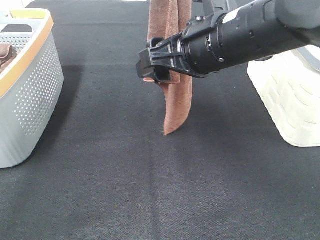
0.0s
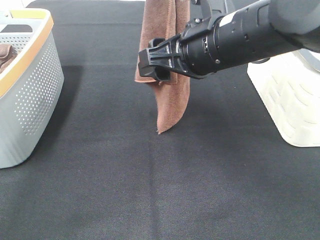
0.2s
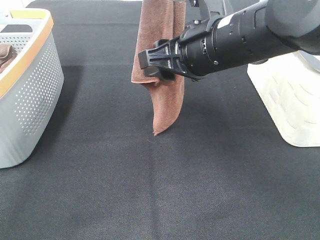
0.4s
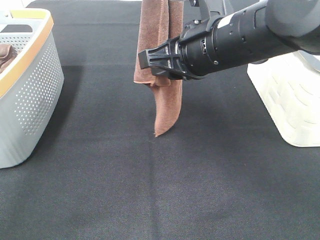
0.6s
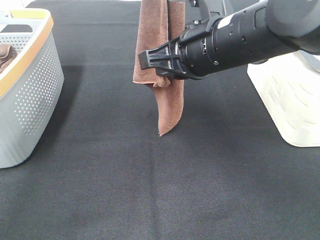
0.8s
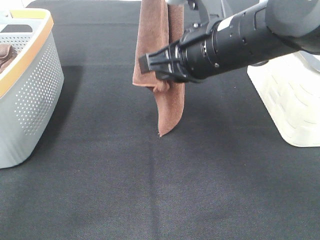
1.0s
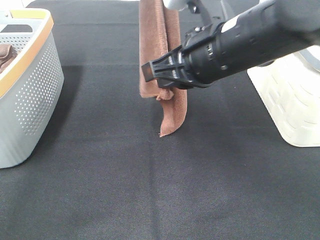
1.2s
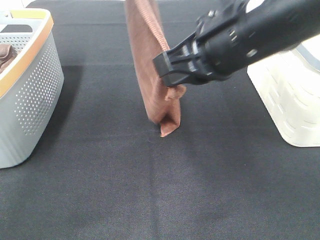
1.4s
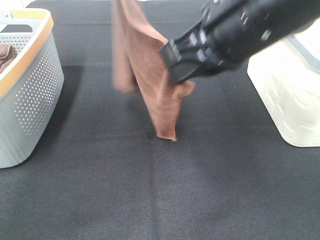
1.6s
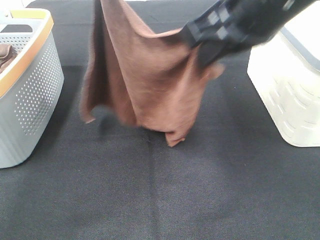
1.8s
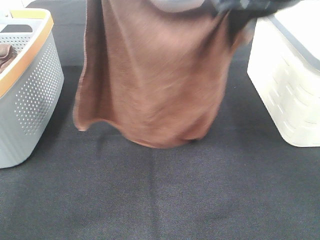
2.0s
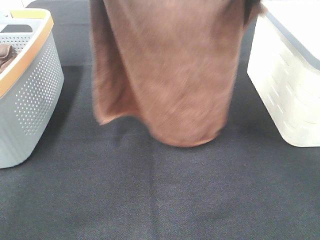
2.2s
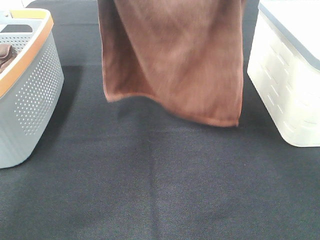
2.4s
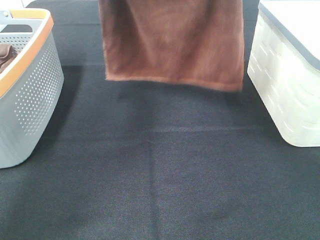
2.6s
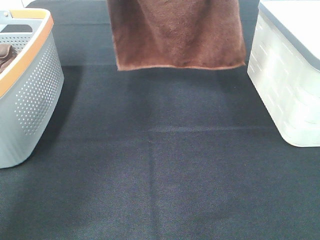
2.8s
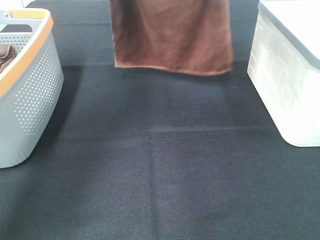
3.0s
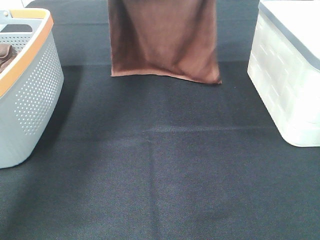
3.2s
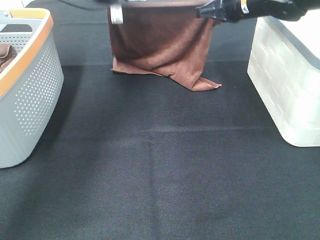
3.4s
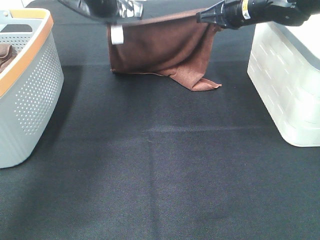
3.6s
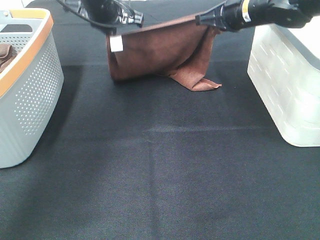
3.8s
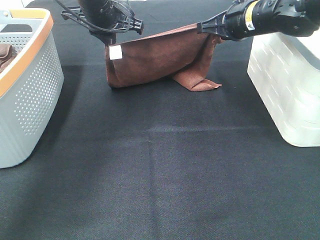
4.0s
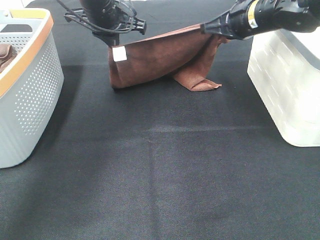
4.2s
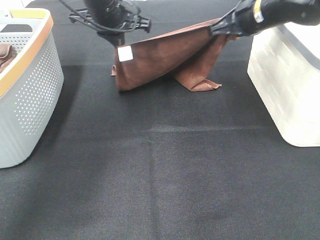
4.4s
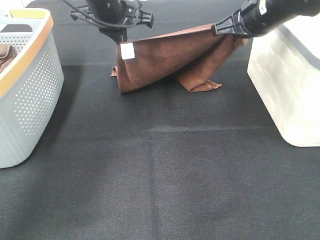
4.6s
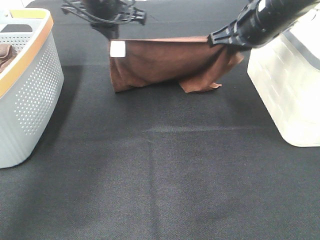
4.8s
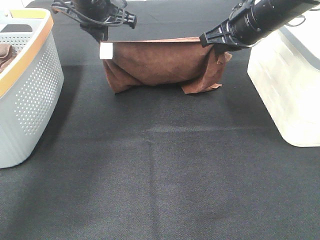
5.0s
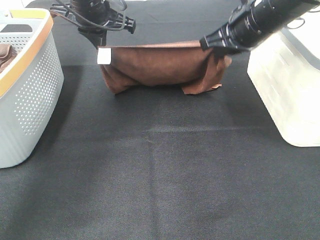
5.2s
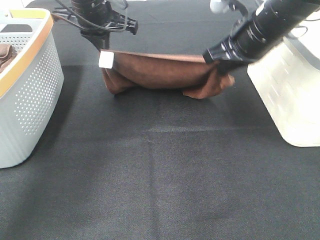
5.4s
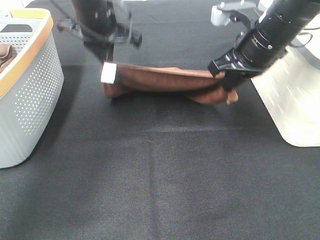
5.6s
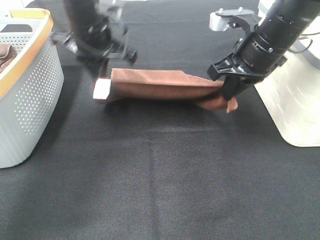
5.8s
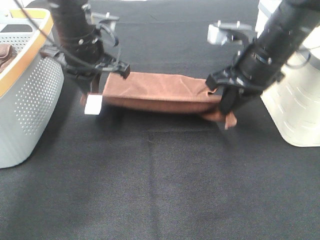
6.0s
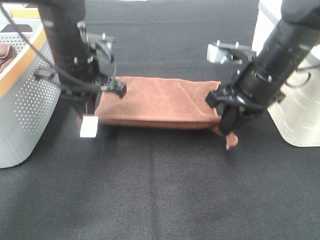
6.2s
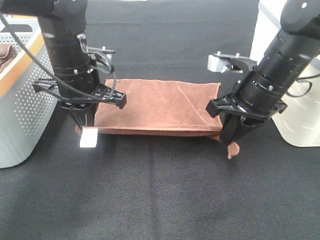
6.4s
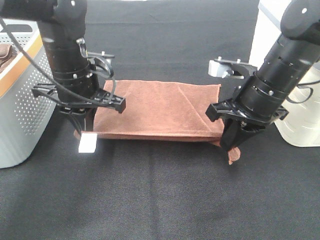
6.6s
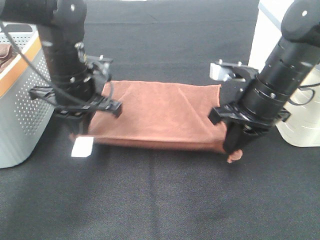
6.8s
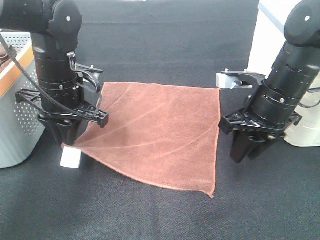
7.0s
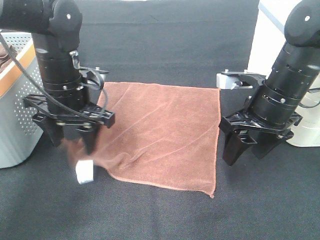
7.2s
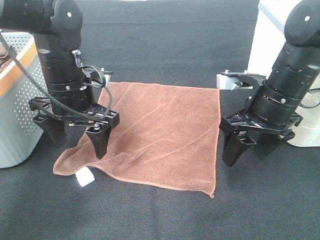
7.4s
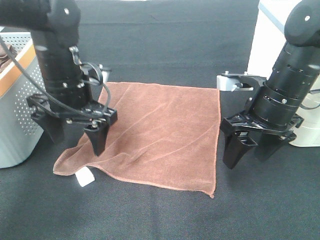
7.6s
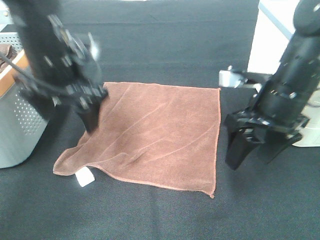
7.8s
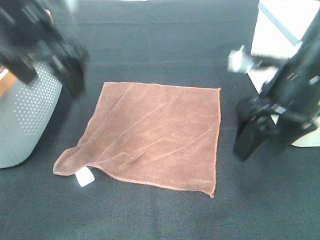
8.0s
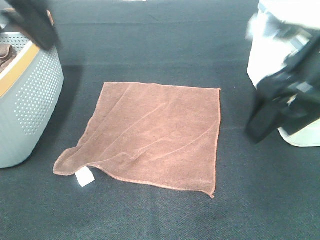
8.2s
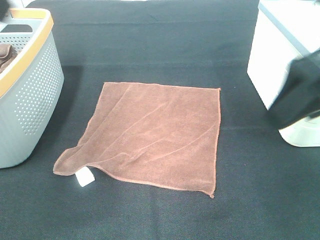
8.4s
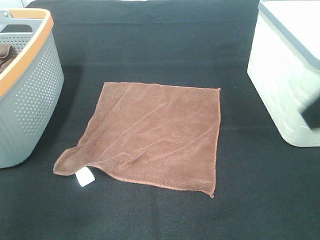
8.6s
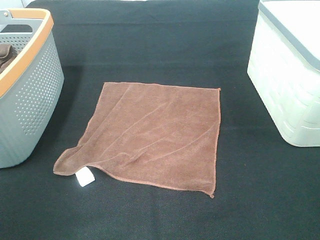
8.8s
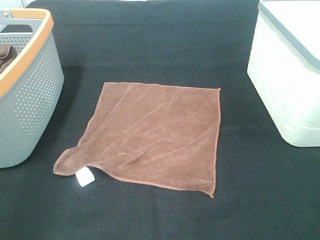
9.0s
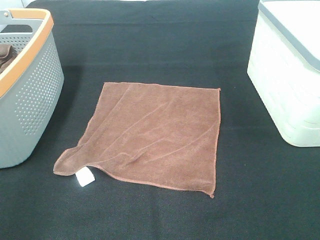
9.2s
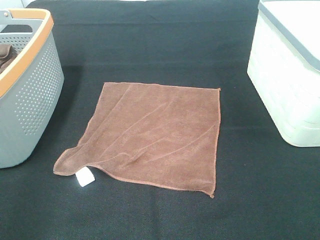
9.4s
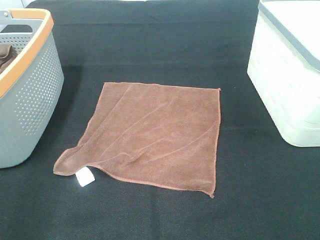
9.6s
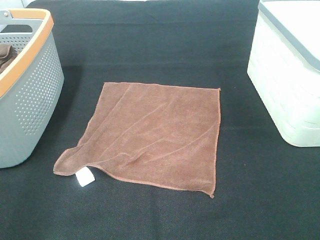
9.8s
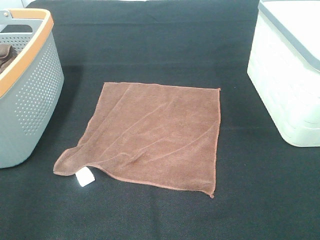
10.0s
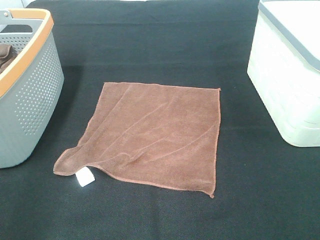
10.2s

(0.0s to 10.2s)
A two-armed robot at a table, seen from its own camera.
Task of the whole recording: Remove the towel and place it.
Step, 0.0s - 2.2s: Right hand: spread the brown towel flat on the table.
Step, 0.0s - 2.4s: Left hand: spread the brown towel flat on the table.
0.0s - 1.4s: The right gripper closes.
1.4s - 3.0s: The left gripper moves forward and downward, about 20 cm, while the right gripper heads forward, covering some 20 cm.
3.0s - 4.4s: The grippers both shift downward by about 10 cm.
4.4s - 5.8s: The grippers both shift backward by approximately 5 cm.
5.8s - 7.2s: The right gripper heads downward and backward, covering about 10 cm, and opens. The left gripper goes some 10 cm backward and downward, and opens its fingers.
7.2s - 8.8s: The left gripper travels backward, upward and to the left by approximately 35 cm; the right gripper travels backward and upward by about 25 cm.
8.8s - 10.2s: The right gripper moves downward, about 5 cm.

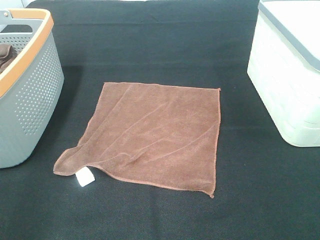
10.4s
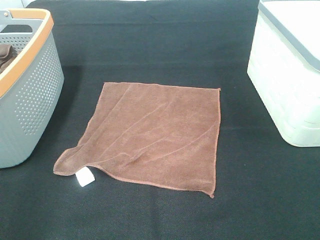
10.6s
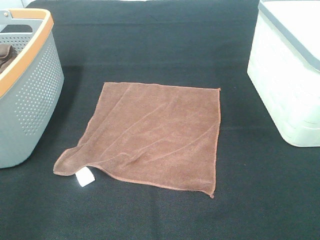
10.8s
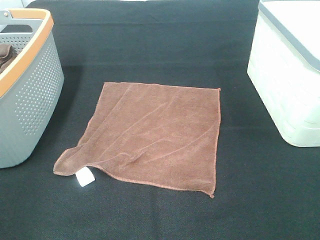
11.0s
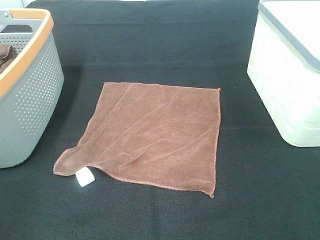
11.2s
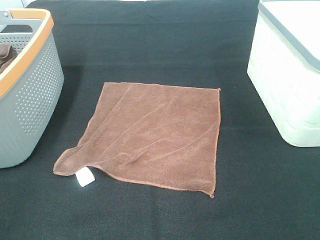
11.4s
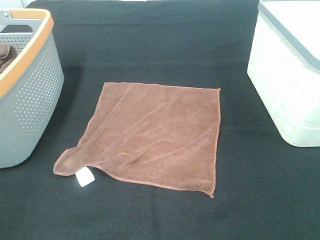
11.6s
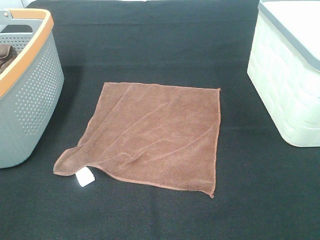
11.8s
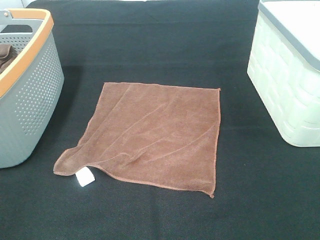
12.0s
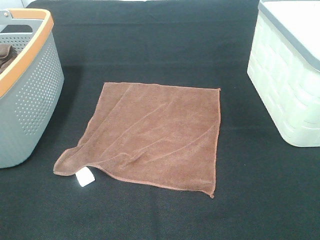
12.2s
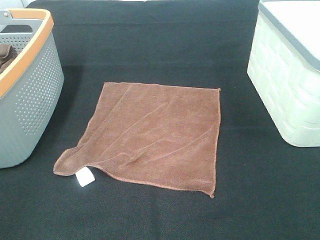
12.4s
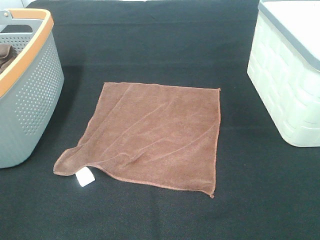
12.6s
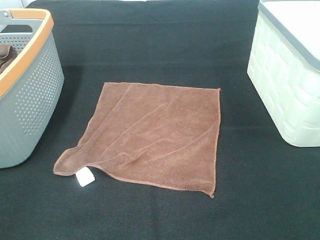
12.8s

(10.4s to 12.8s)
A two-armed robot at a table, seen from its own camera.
Task of the whole recording: Remove the towel and place it.
11.6s - 12.8s: Neither gripper changes place.

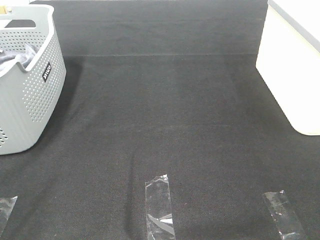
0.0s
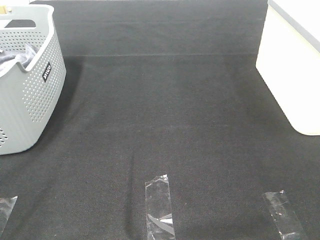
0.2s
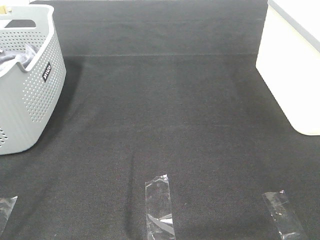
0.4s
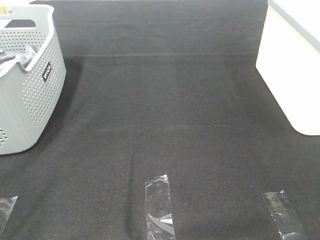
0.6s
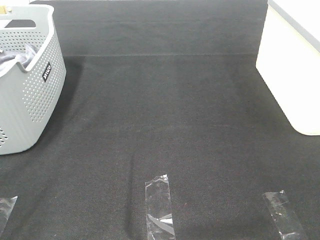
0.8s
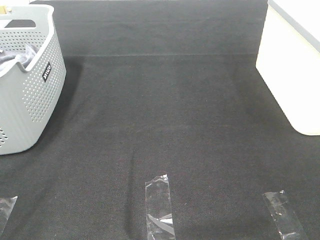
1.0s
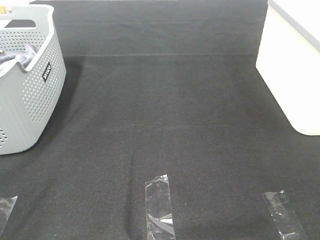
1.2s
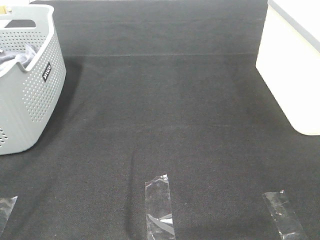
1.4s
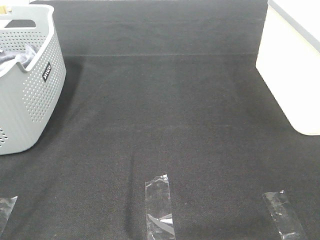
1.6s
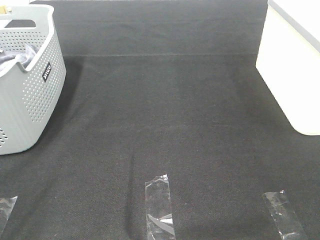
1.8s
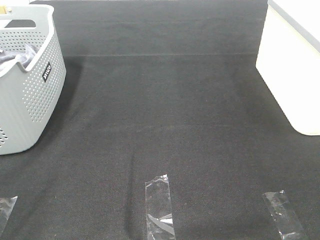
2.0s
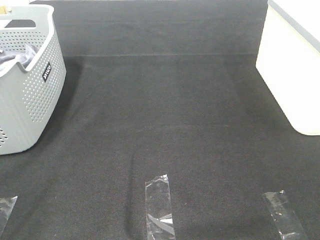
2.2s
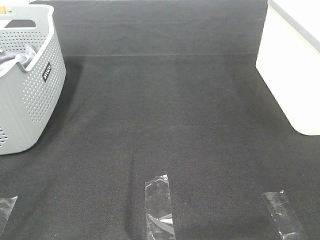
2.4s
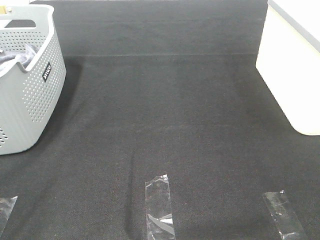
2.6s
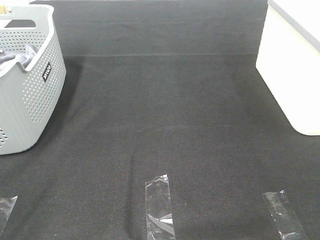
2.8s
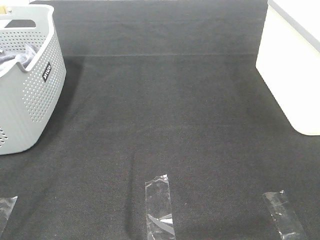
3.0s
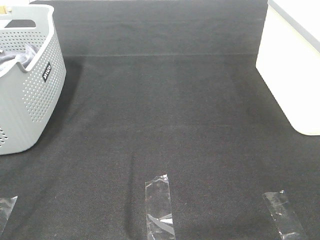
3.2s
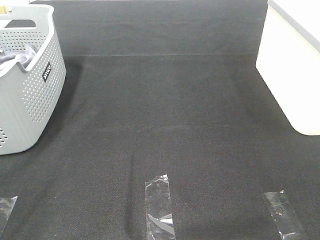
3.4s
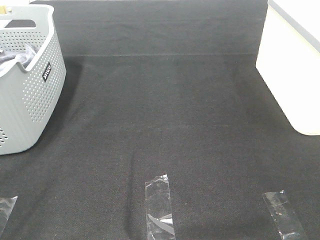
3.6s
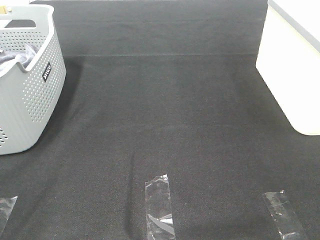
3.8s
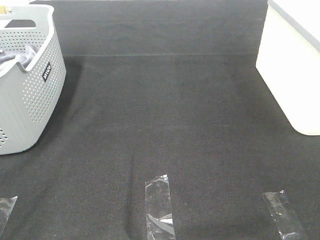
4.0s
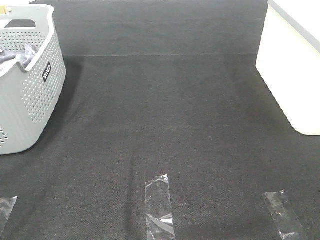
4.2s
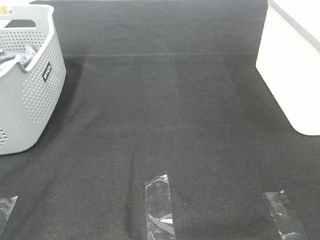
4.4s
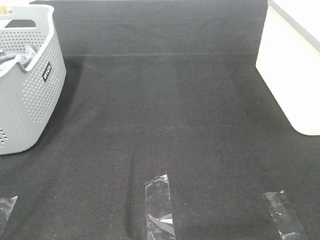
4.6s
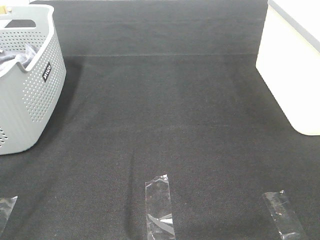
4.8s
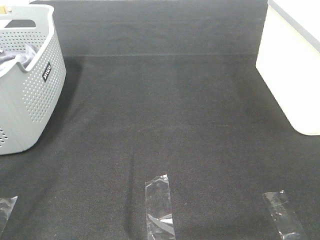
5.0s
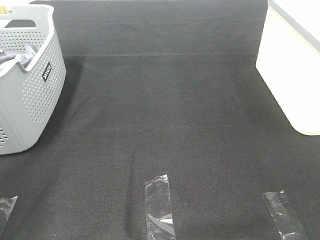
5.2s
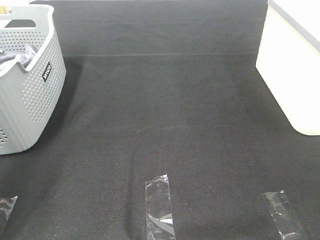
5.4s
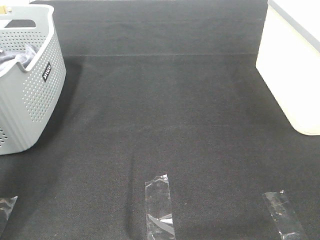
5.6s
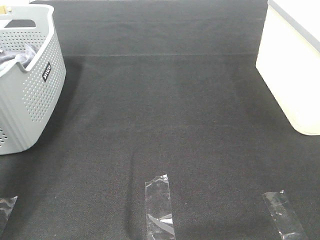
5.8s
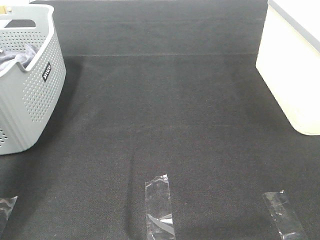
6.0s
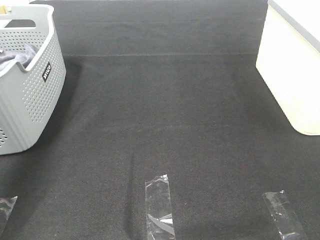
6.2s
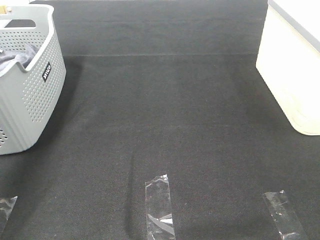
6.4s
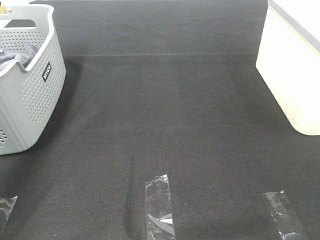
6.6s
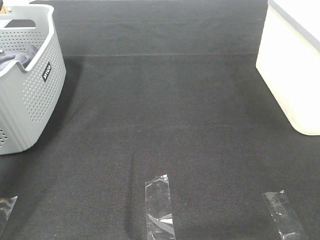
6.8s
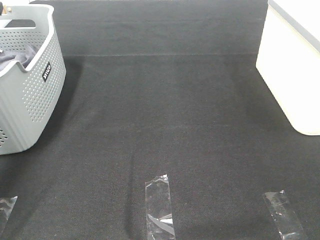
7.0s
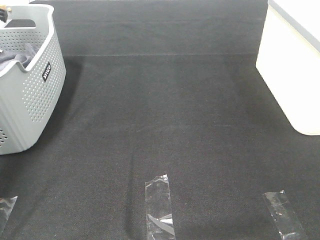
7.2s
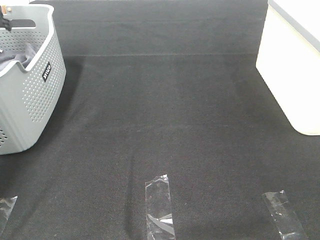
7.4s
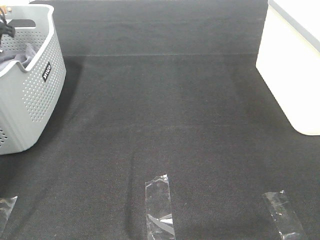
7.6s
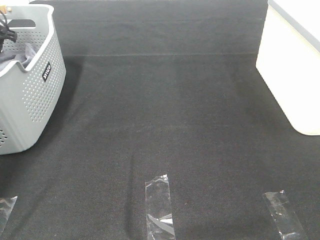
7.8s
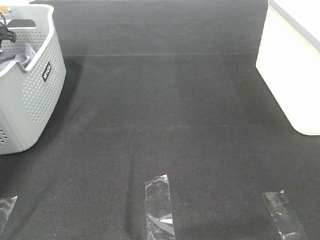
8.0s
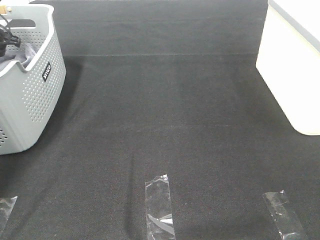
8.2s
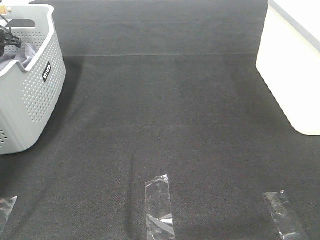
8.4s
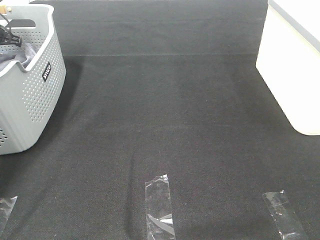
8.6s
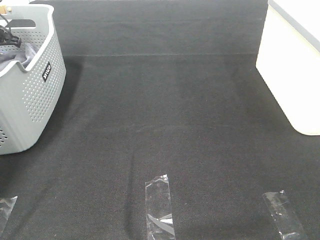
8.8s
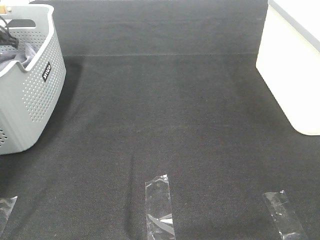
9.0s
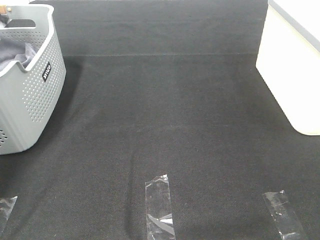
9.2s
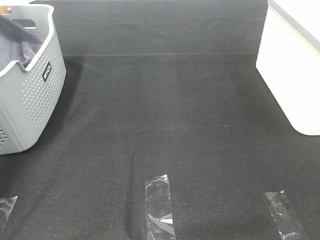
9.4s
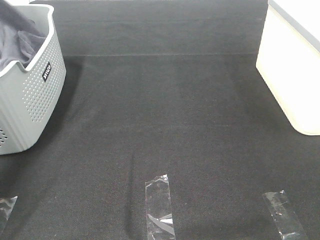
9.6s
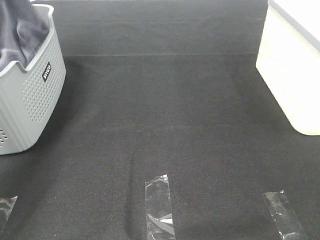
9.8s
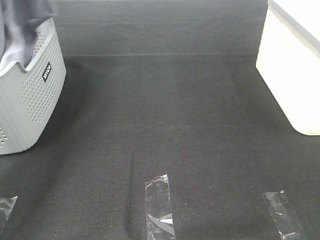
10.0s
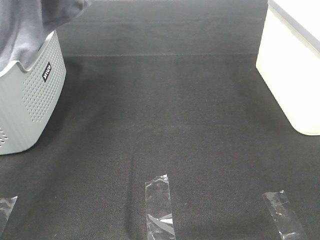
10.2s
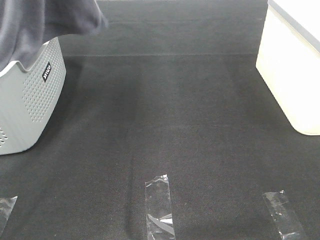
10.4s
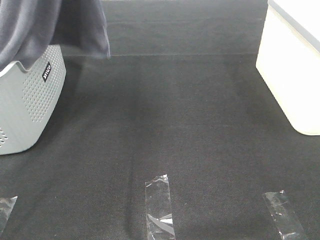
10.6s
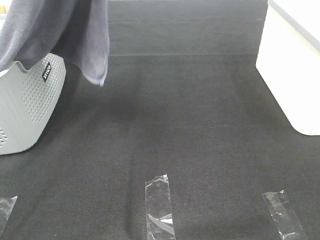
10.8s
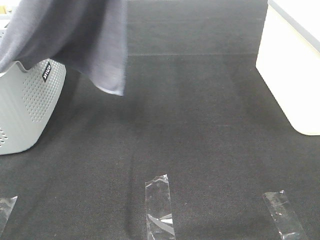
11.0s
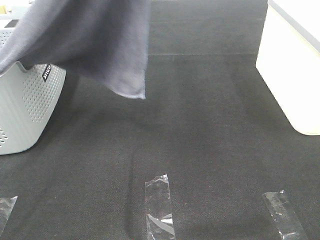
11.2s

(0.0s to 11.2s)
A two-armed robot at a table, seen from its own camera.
Task of the whole recording: Remove the towel and place it.
0.0s - 3.2s: The two grippers keep their place.
4.8s - 6.4s: The left gripper travels forward by roughly 40 cm.
6.4s - 8.0s: The left gripper heads forward, downward and to the left, covering about 20 cm.
8.0s - 9.6s: The left gripper is displaced upward by roughly 20 cm, and closes its fingers.
9.6s - 11.2s: The right gripper heads forward, covering approximately 5 cm. The left gripper travels to the right, backward and upward by some 35 cm.
